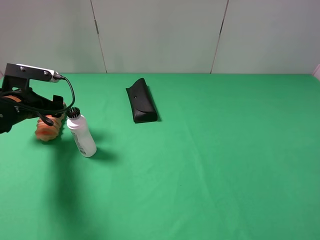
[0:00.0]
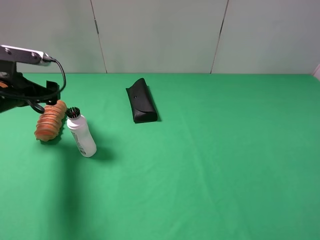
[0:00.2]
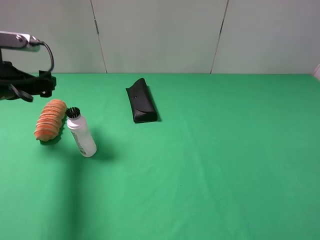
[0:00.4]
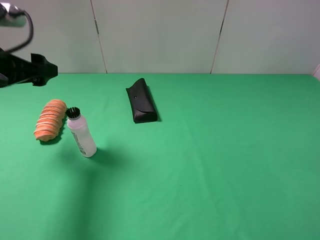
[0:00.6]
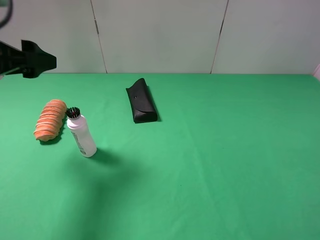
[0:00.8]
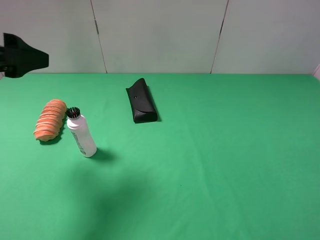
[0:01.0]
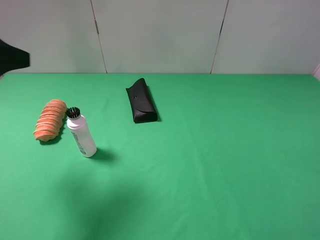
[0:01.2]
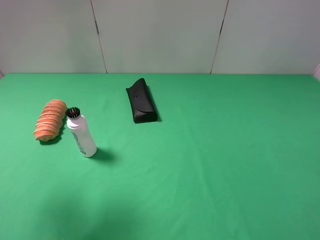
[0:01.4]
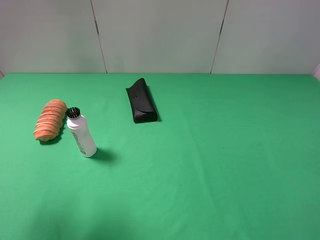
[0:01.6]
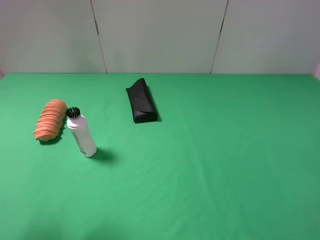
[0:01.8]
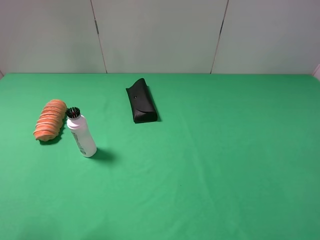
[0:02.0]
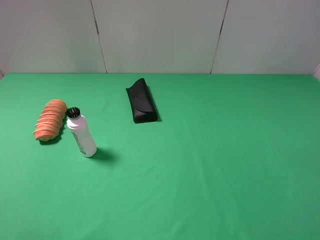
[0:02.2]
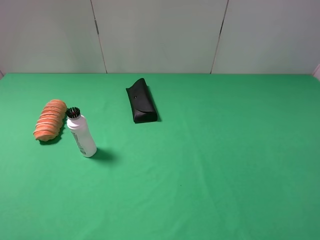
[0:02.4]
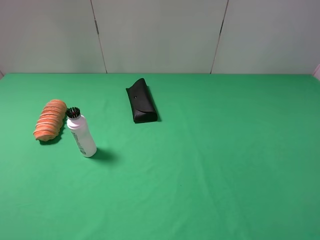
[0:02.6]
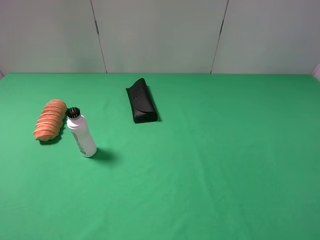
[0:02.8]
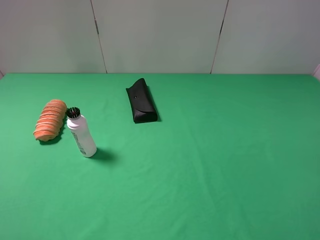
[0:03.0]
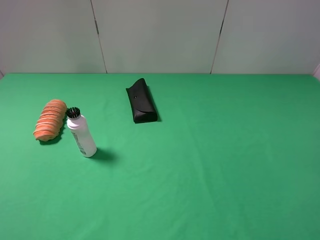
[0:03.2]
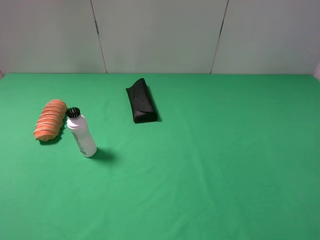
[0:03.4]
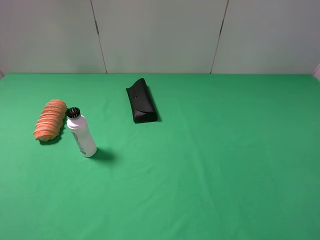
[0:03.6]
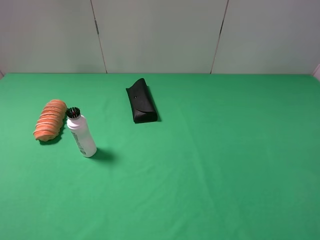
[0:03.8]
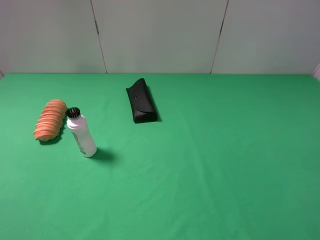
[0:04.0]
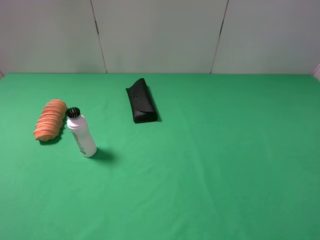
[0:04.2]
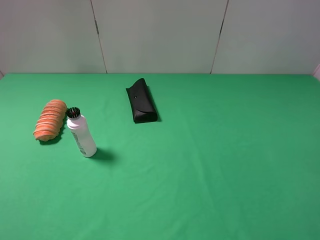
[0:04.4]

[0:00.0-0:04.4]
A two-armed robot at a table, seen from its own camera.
Task of the whole recording: use the right gripper to pick up the item and transfer it from the right gripper to the left gripper.
0:00.0 to 0:01.4: The left gripper travels upward and backward by some 25 cm.
0:01.4 to 0:03.0: The left gripper goes approximately 10 cm backward.
